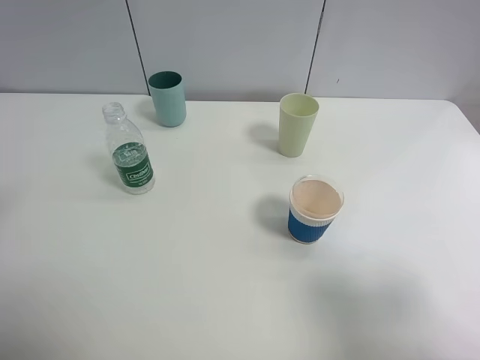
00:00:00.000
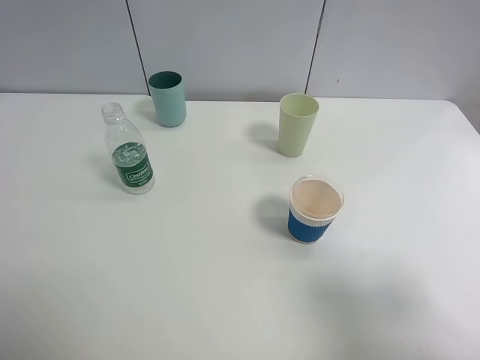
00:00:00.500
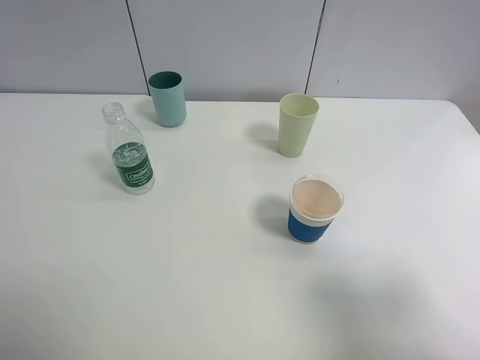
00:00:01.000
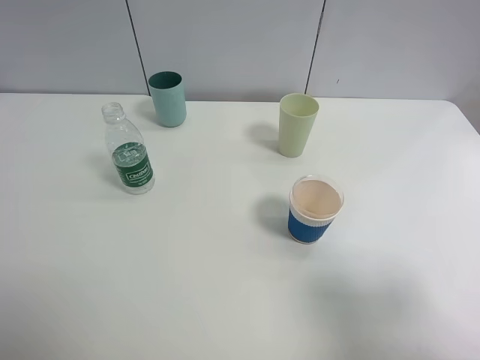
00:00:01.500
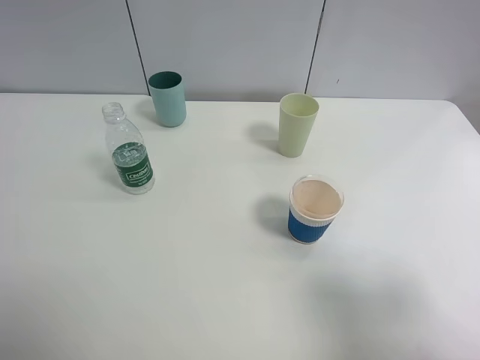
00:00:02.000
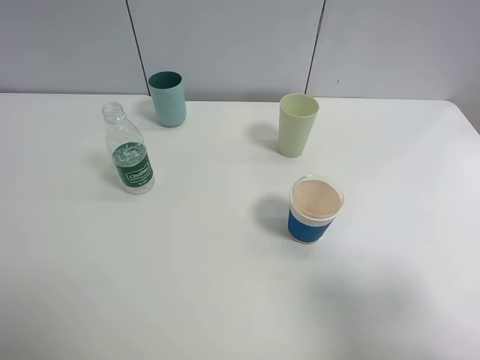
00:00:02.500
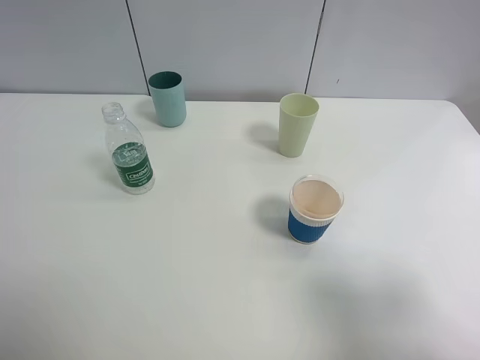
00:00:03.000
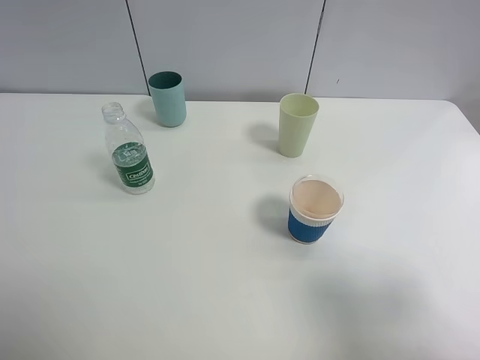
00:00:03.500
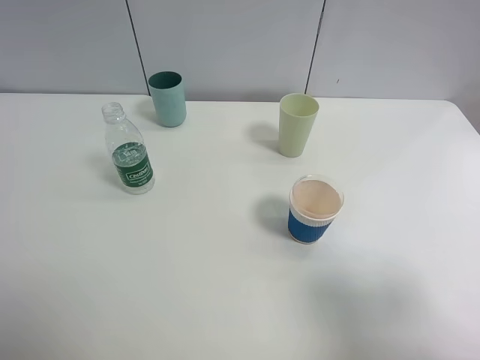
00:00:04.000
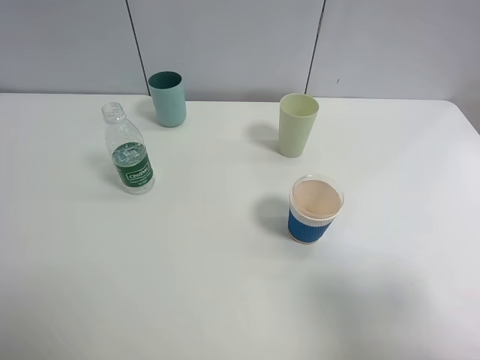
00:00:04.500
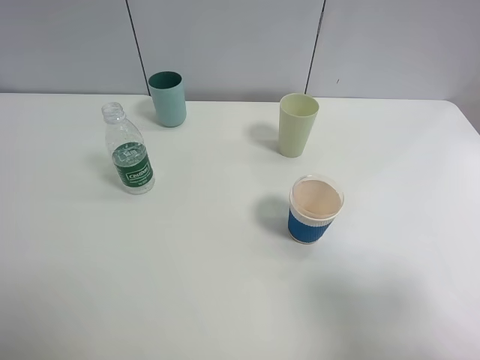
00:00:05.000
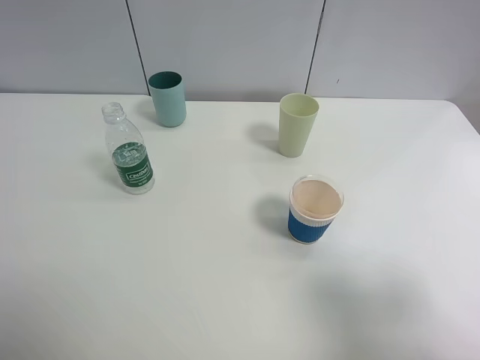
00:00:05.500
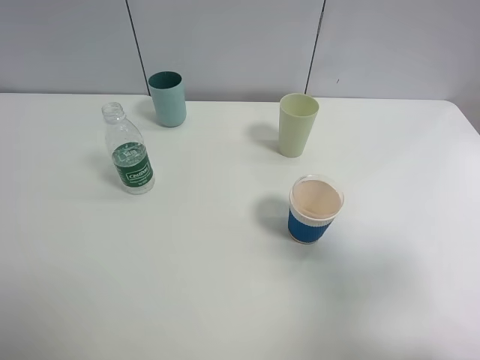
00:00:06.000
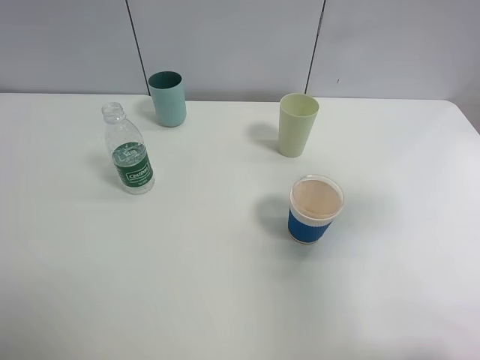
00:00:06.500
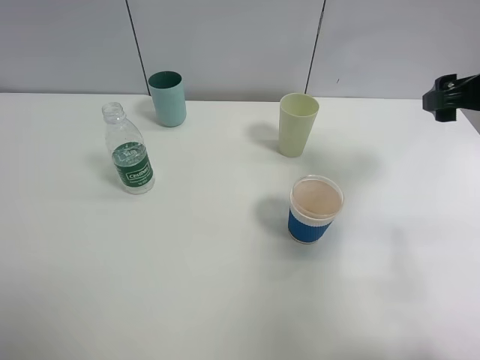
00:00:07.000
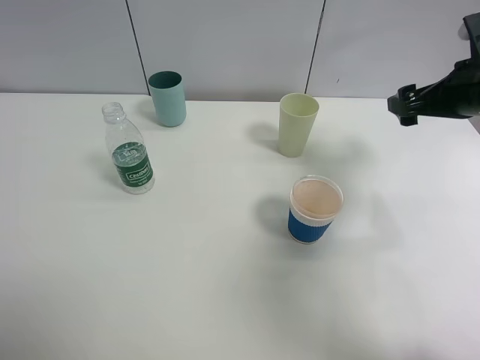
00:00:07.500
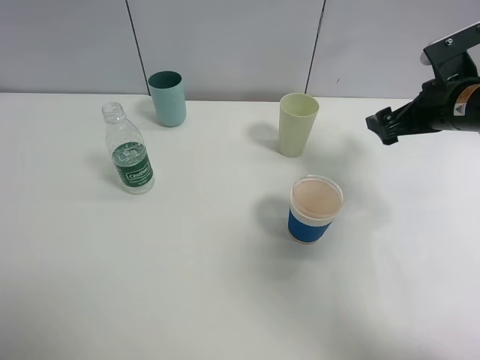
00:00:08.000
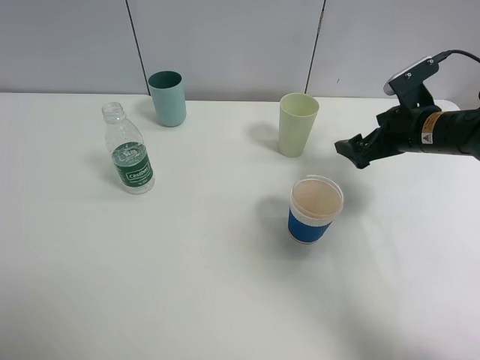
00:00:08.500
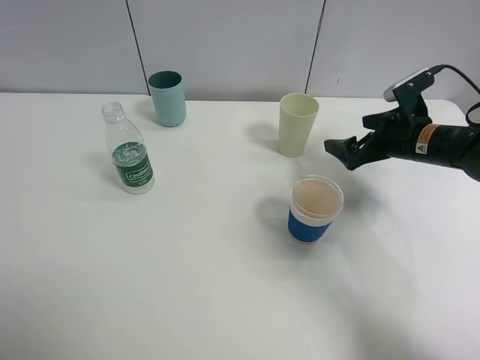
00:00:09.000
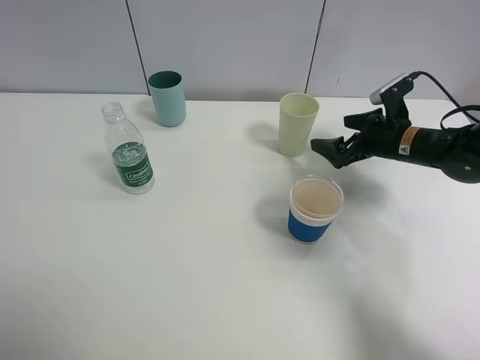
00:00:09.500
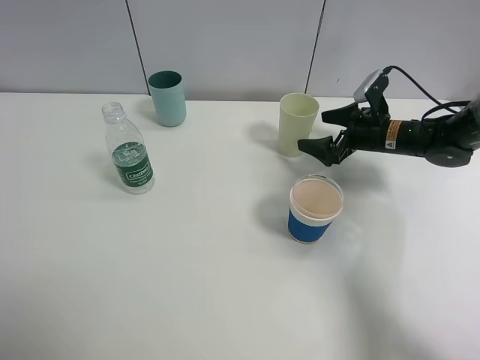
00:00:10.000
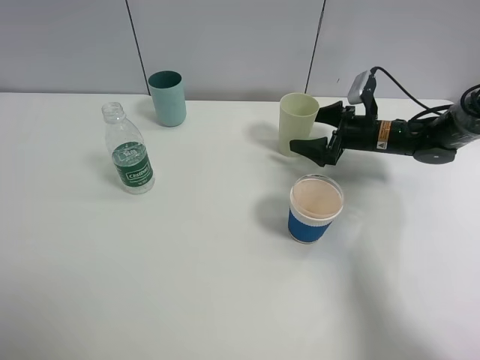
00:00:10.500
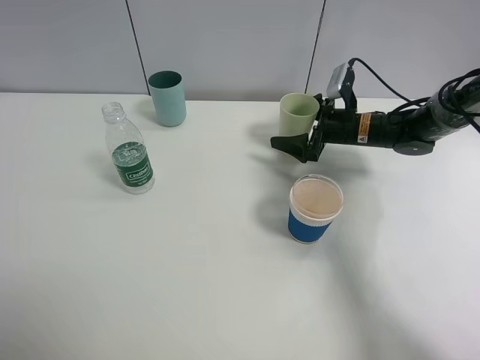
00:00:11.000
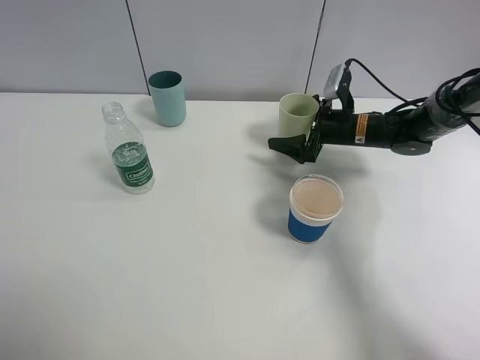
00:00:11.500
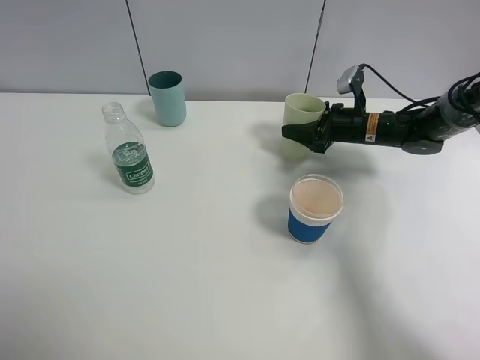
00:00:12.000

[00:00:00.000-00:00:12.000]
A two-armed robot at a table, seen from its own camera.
Task of the whole recording: use a clamp to hold the bottle of the drink, pour the beverage into a random cup, then clamp the cup containing the drink and pour the drink into another random cup.
00:00:04.000 to 00:00:06.000: The right gripper ends up roughly 5 cm from where it was.
00:00:06.000 to 00:00:08.000: The right gripper heads forward and downward, covering about 30 cm.
00:00:08.000 to 00:00:10.000: The right gripper moves downward and forward, roughly 15 cm.
00:00:10.000 to 00:00:12.000: The right gripper closes up.

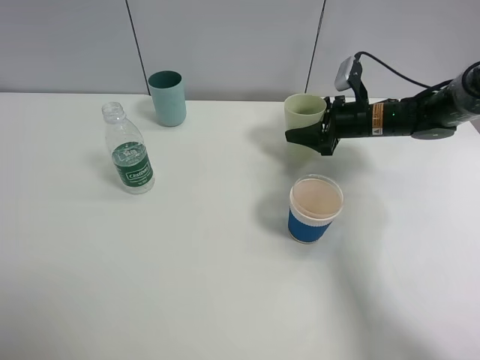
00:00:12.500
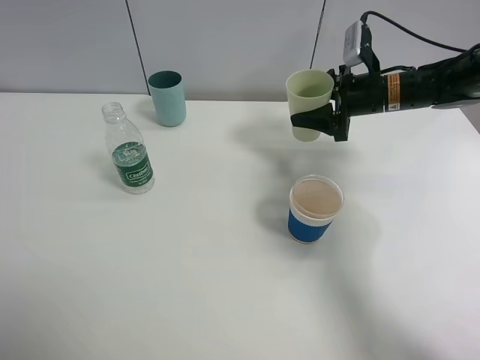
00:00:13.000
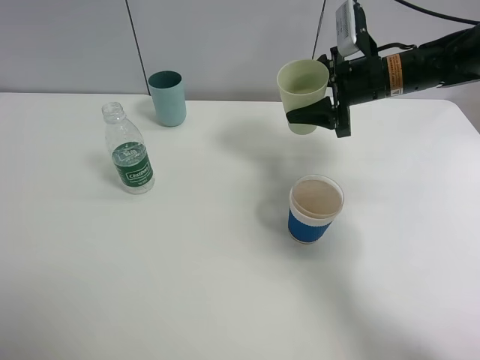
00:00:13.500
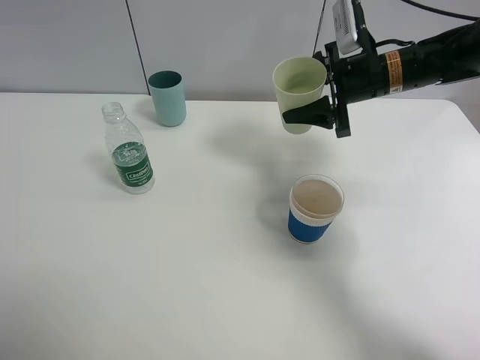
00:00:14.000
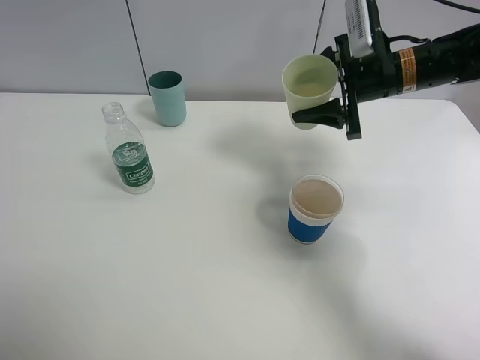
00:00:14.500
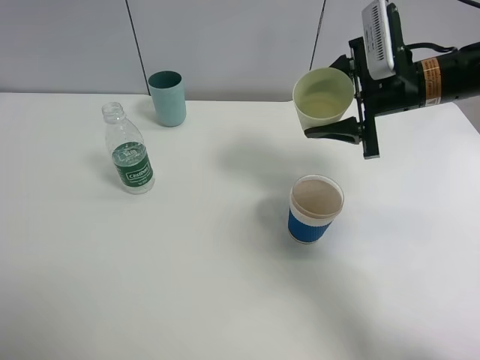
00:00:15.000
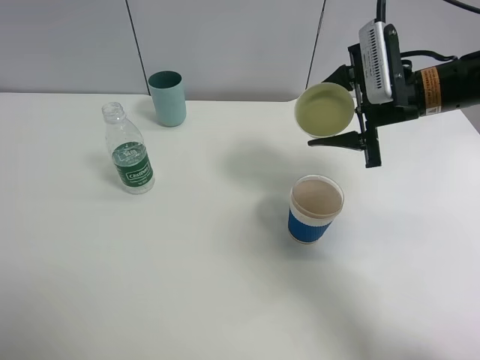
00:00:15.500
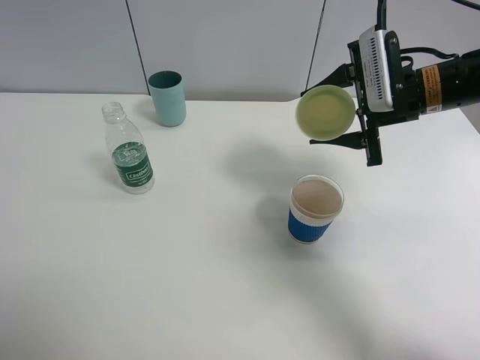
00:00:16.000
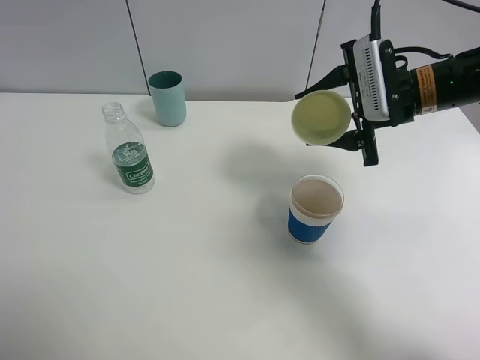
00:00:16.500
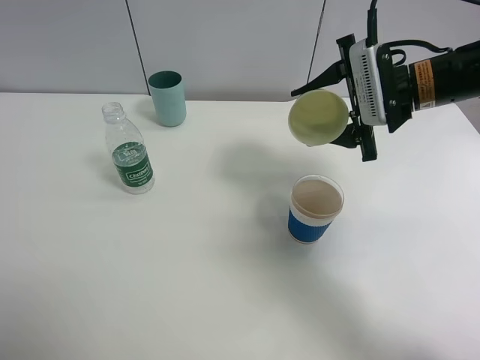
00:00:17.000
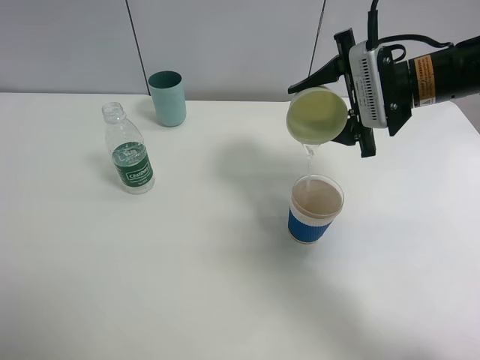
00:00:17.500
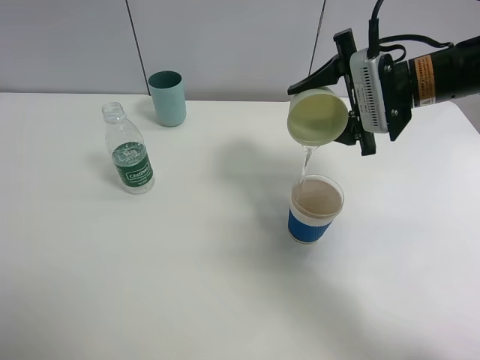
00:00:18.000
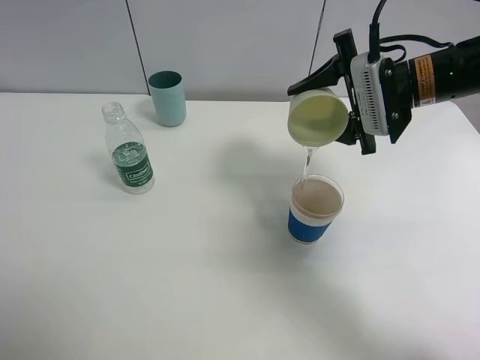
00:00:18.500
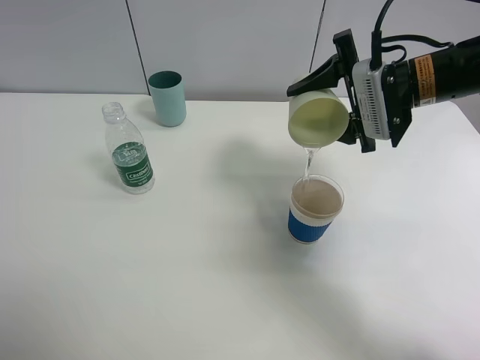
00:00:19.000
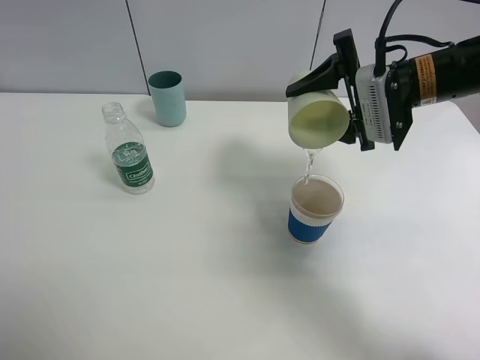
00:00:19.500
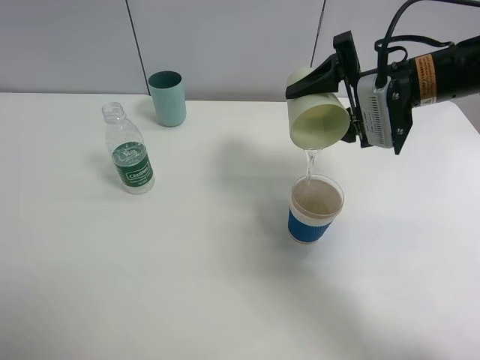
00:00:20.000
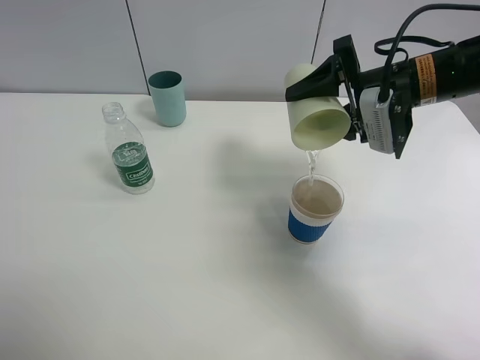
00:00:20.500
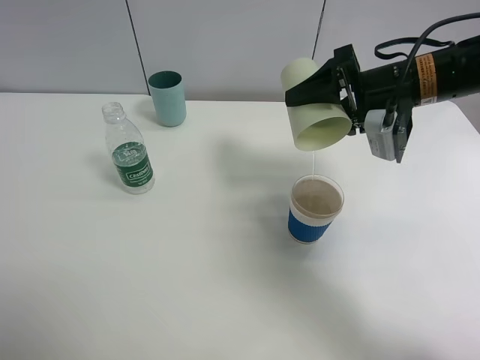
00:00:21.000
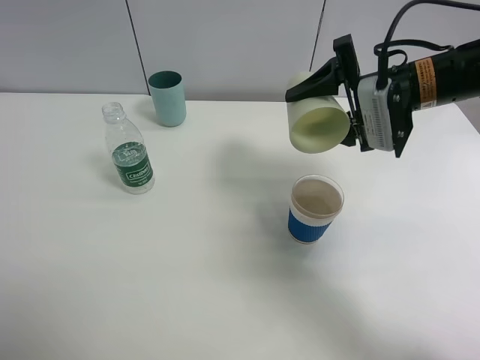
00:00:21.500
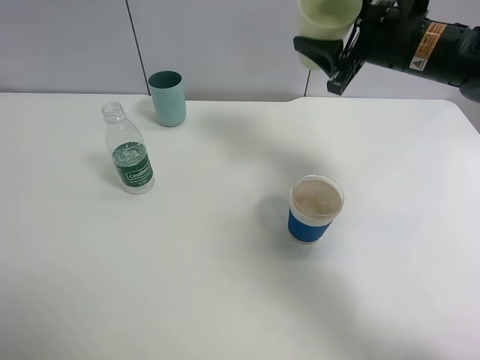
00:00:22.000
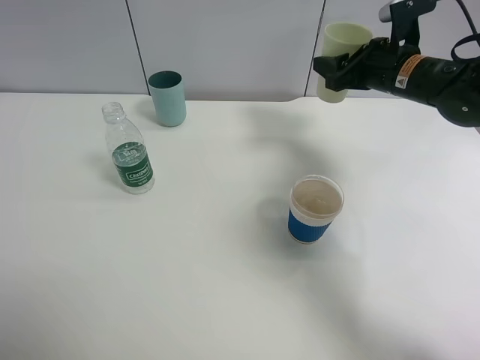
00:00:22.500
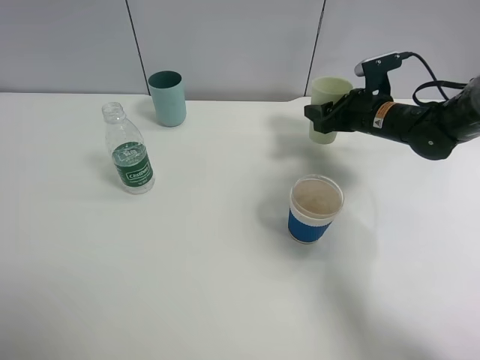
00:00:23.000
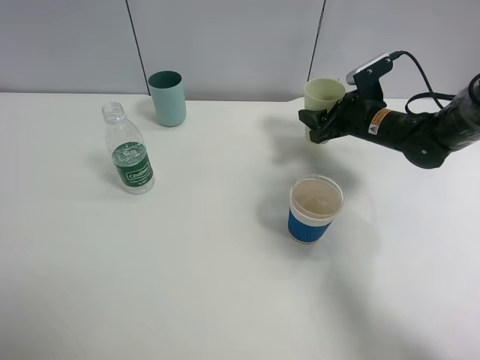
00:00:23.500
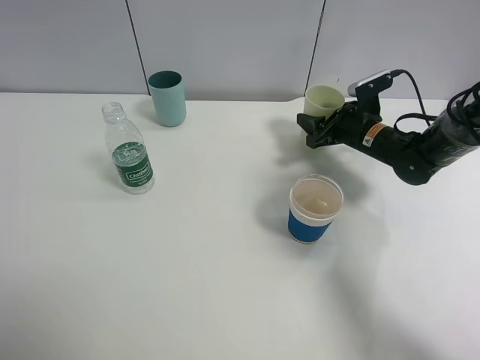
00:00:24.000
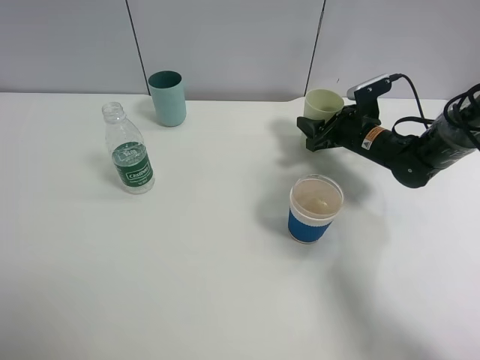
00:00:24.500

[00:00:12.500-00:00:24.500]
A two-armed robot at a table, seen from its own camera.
Task of the whole recording: use a clamp to hold the bottle of the drink, pour the beverage into a random cup, then clamp the cup containing the drink and pour the drink into another random cup.
Step, 00:00:13.000 to 00:00:21.500: Pour water into the paper cup with right gripper.
00:00:12.500 to 00:00:14.500: The right gripper travels upward by about 10 cm.
00:00:16.500 to 00:00:18.500: The grippers stay close to where they were, moving slightly.
00:00:20.500 to 00:00:22.500: The right gripper heads forward, covering approximately 5 cm.
00:00:22.500 to 00:00:24.500: The right gripper is displaced downward by some 10 cm.

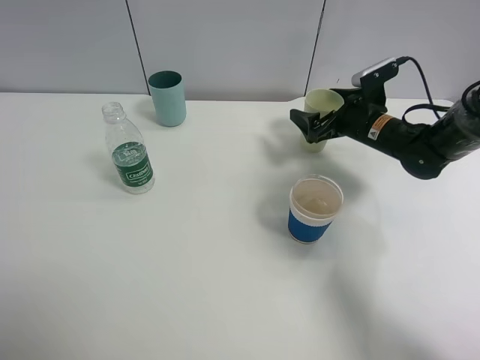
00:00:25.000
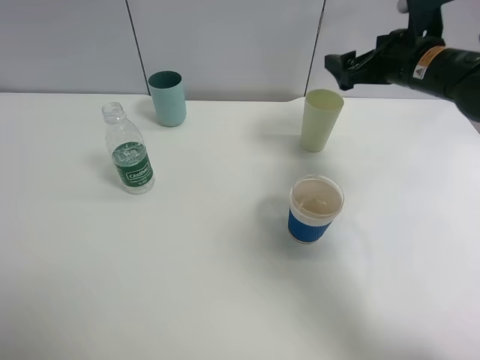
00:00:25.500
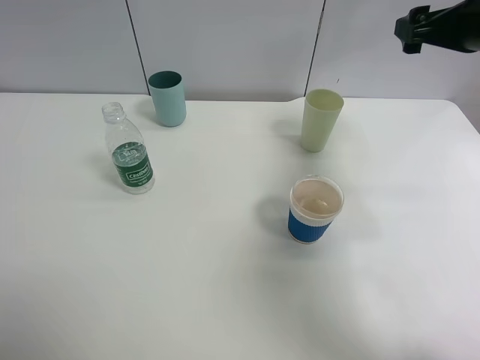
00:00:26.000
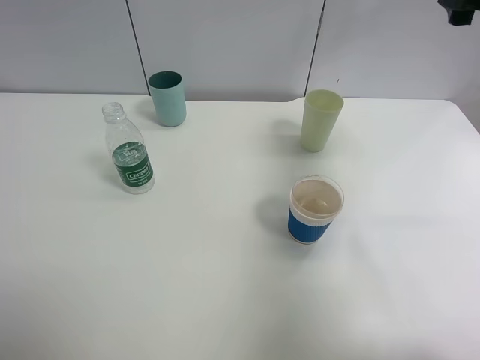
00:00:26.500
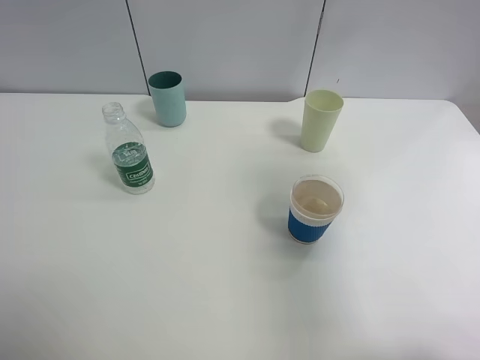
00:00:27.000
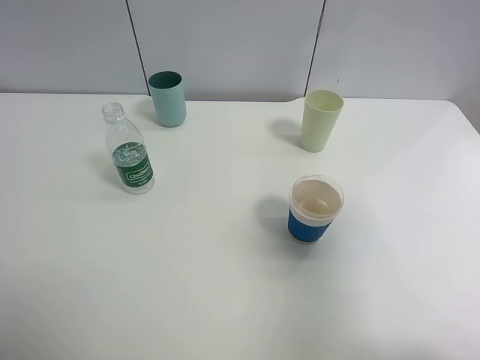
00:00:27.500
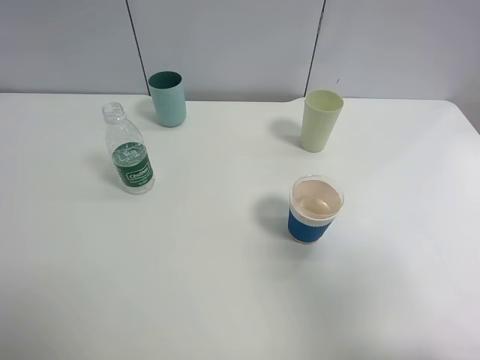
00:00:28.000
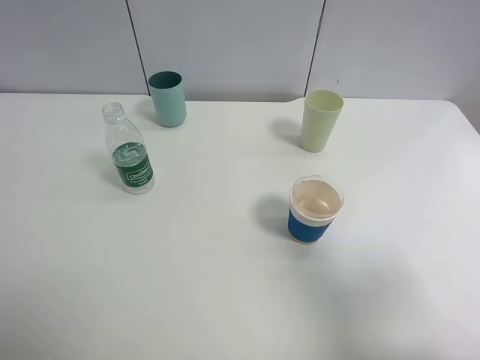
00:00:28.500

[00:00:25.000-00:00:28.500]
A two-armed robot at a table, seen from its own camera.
Task of the whole recording: use a clamp to hold the bottle of the drink, pour the beverage into a random cup, then clamp the cup containing the drink and pour the drink into another random cup.
00:00:25.000 to 00:00:27.000: The right gripper goes some 35 cm upward and backward.
00:00:27.000 to 00:00:28.500: The right gripper is displaced backward and downward by roughly 15 cm.
